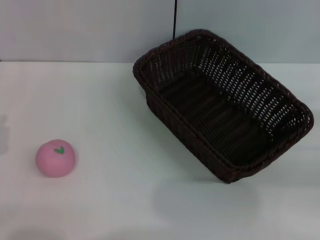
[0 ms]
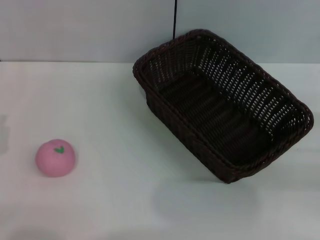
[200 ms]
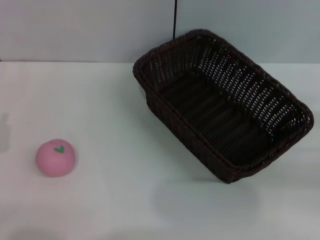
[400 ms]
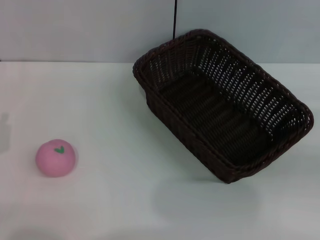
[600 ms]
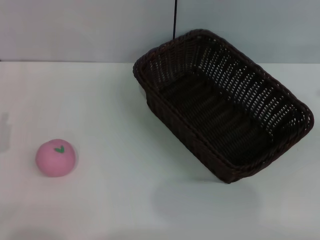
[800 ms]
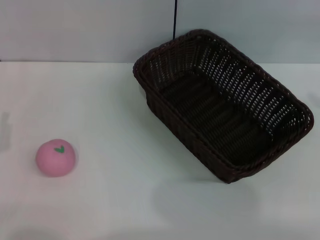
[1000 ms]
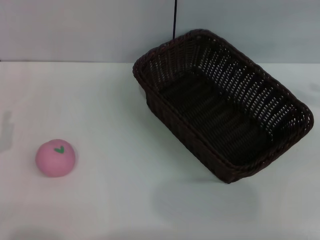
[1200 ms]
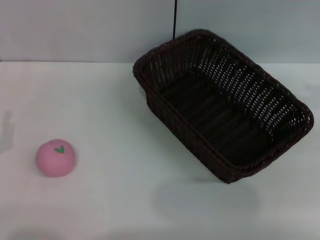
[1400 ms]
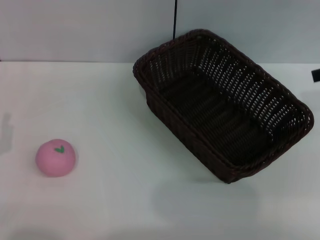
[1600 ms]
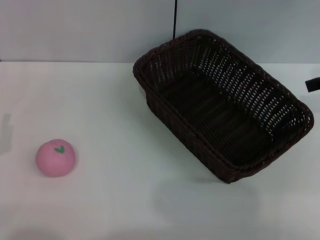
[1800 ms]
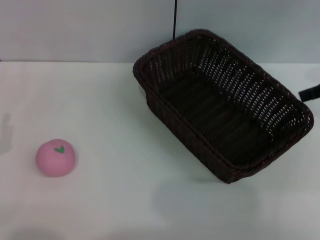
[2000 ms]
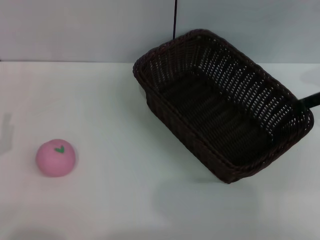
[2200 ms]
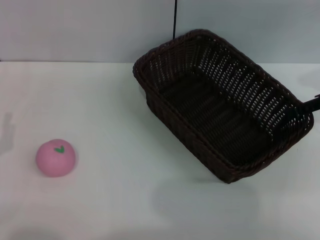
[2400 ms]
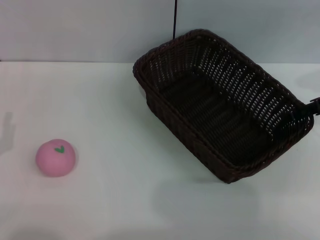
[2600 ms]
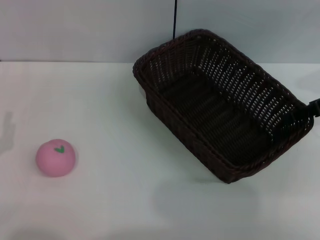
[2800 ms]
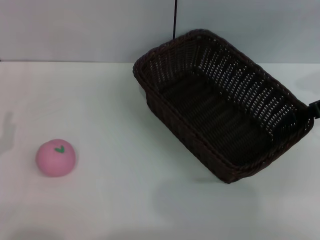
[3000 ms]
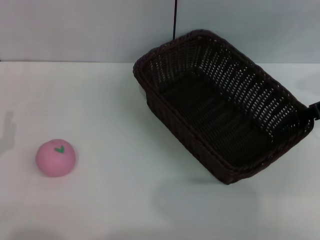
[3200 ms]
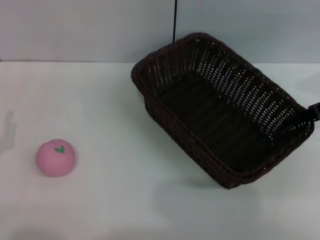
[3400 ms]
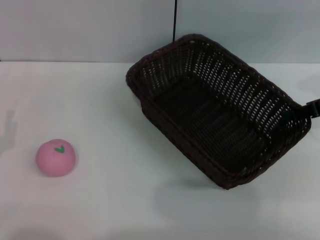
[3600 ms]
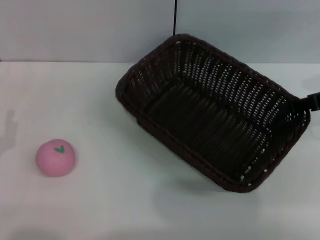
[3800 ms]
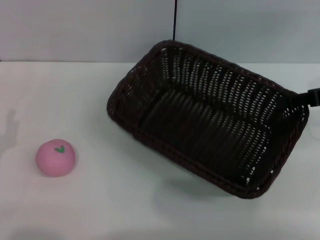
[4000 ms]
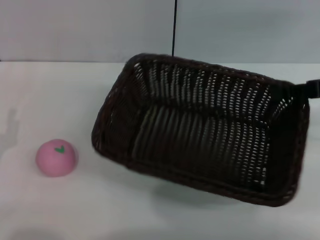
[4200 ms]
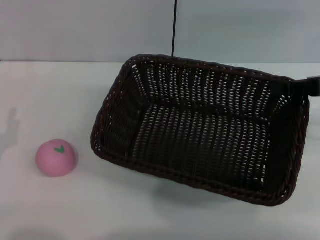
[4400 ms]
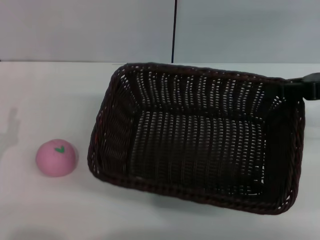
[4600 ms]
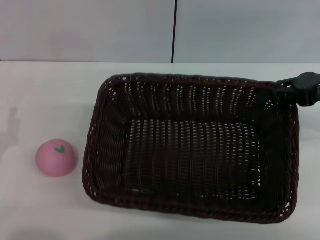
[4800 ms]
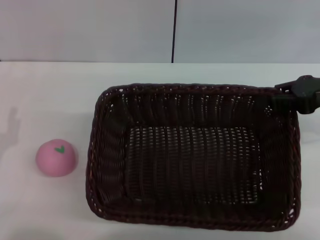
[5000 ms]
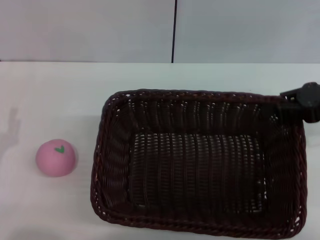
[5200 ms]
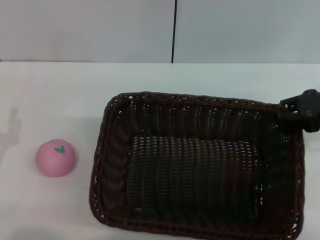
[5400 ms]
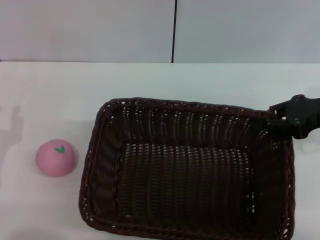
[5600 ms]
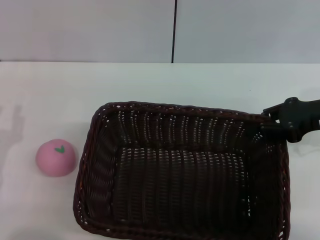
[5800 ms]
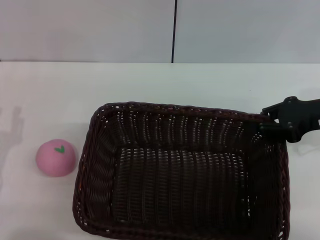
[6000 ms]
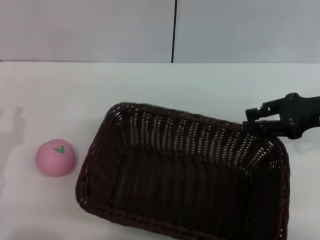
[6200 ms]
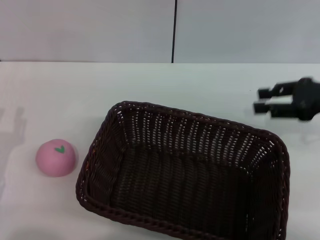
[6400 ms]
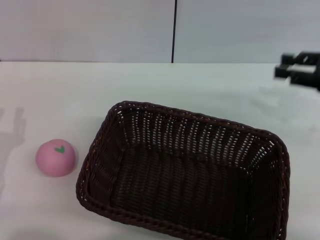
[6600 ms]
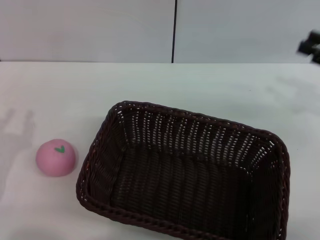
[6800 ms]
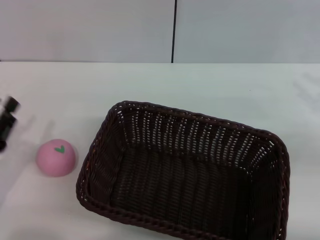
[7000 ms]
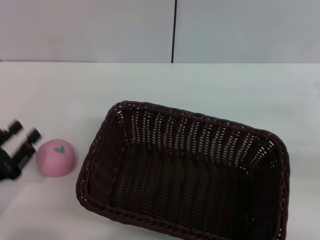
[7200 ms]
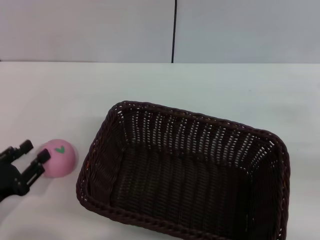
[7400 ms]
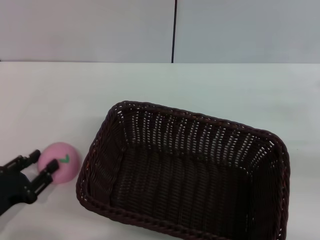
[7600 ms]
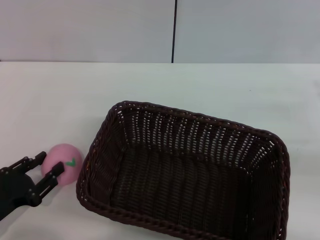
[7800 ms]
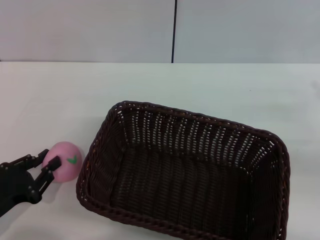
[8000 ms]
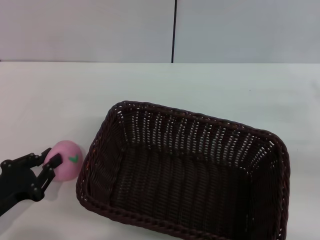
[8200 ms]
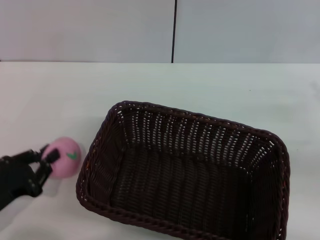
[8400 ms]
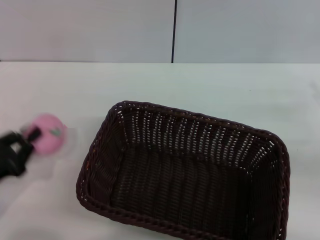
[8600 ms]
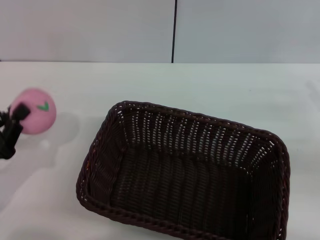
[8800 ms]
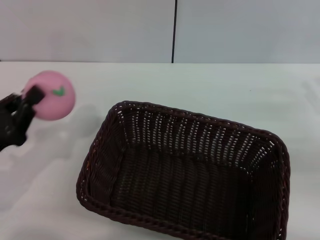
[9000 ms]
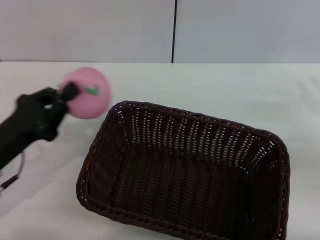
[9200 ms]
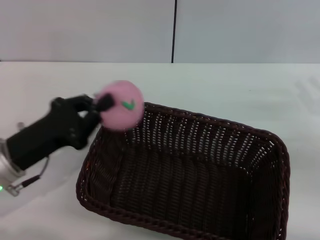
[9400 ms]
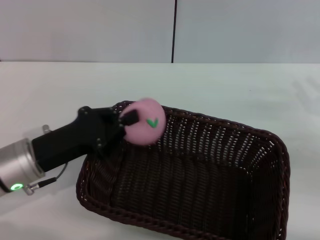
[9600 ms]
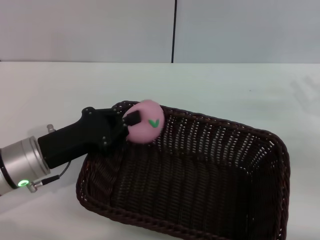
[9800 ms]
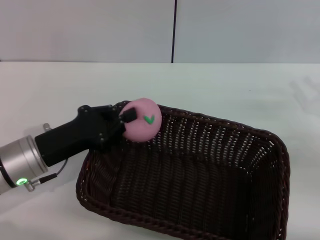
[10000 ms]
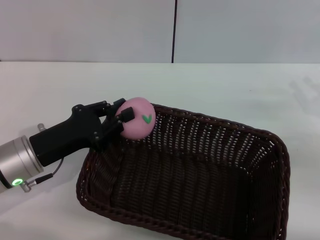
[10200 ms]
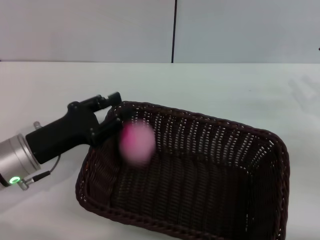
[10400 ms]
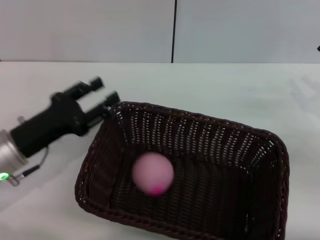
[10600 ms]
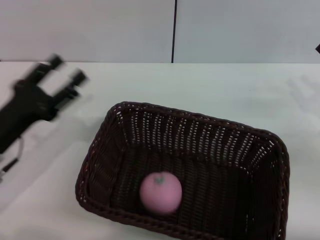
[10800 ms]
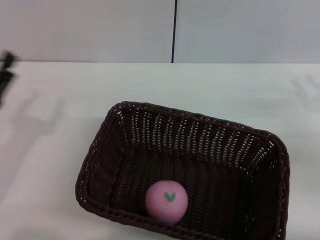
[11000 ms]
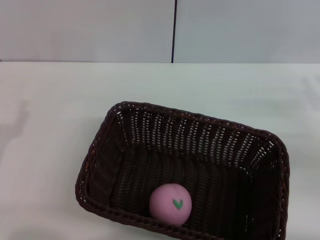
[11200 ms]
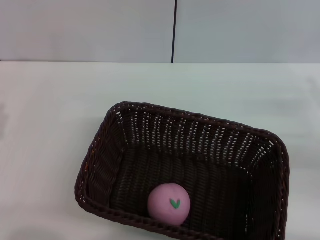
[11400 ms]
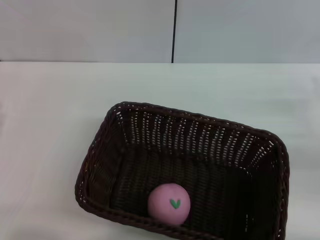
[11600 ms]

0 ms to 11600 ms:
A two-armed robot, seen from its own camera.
Step, 0 ms to 4000 ms: Pick up the dark basket with the right gripper.
Step, 4200 ms to 6200 ms: Place the dark basket in the center of view with the right gripper.
Step, 6600 ms to 8600 ms: Pick up the peach with the left gripper.
Step, 8800 ms to 10400 ms: Place the peach into the basket with the left gripper.
2800 ms to 4400 ms: The right gripper closes up.
5800 ms to 7200 ms: The right gripper moves to the right and backward, roughly 10 cm, and opens its fingers.
7200 ms to 8800 ms: The left gripper closes its fingers.
8800 ms to 10200 ms: The left gripper is displaced to the right and forward by about 10 cm.
10200 ms to 11600 ms: The left gripper moves to the left and backward, approximately 10 cm, and opens up.
